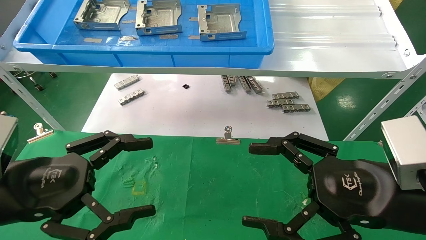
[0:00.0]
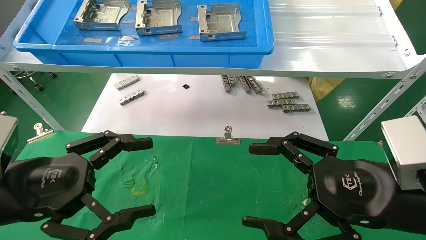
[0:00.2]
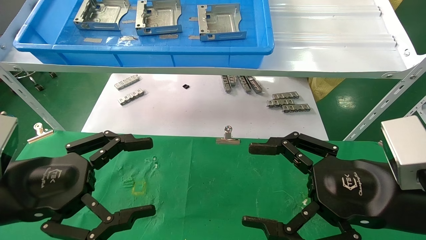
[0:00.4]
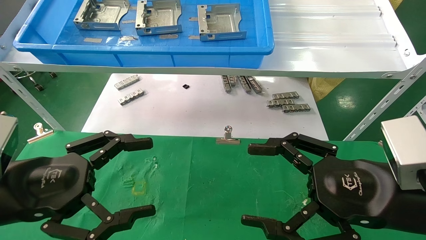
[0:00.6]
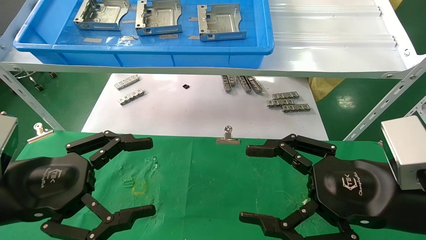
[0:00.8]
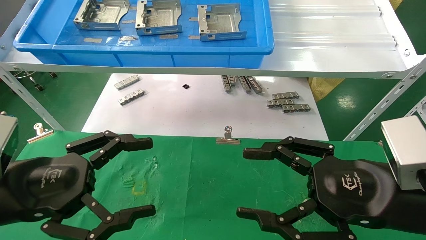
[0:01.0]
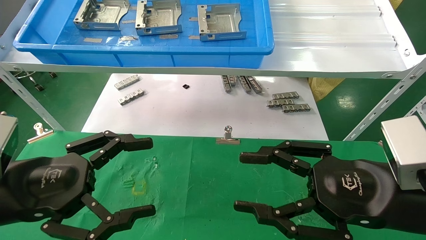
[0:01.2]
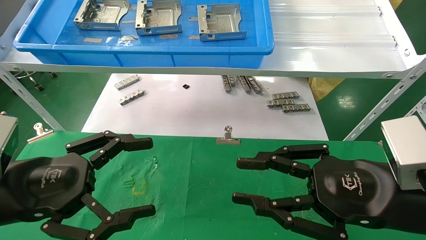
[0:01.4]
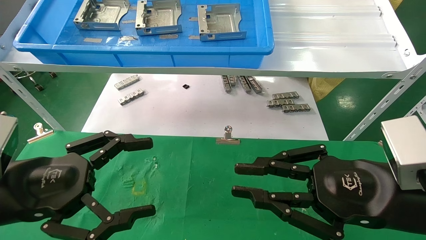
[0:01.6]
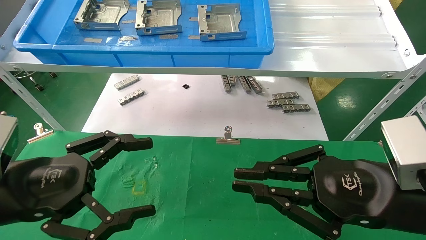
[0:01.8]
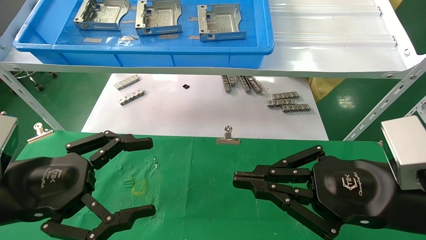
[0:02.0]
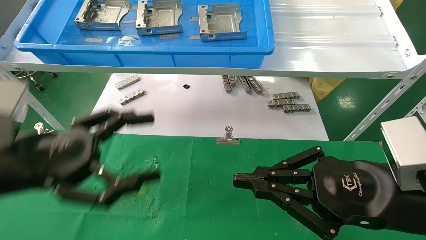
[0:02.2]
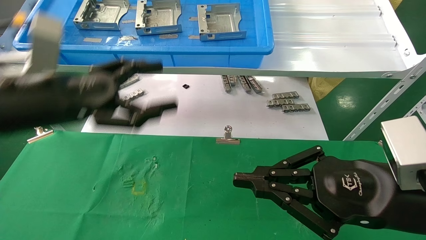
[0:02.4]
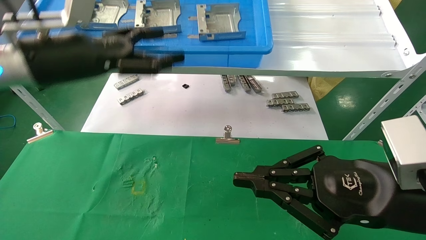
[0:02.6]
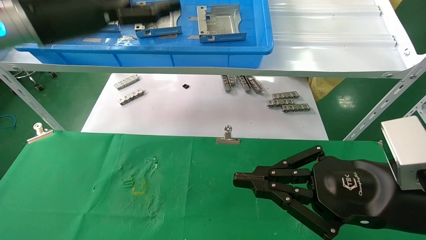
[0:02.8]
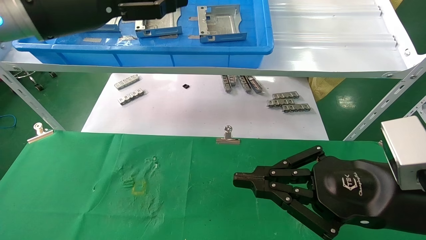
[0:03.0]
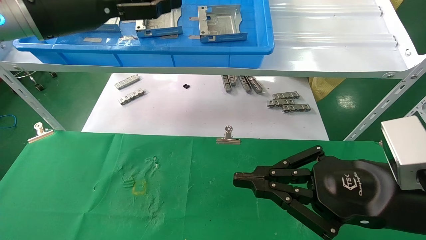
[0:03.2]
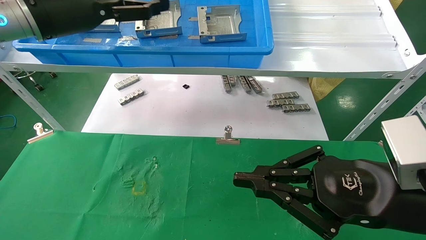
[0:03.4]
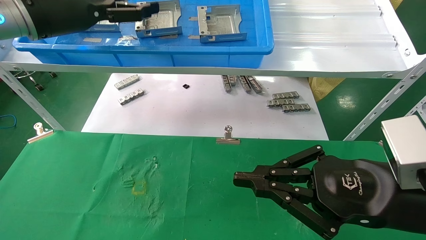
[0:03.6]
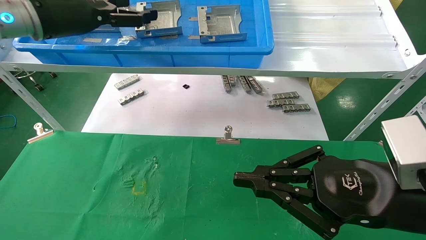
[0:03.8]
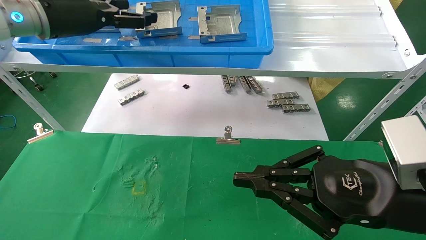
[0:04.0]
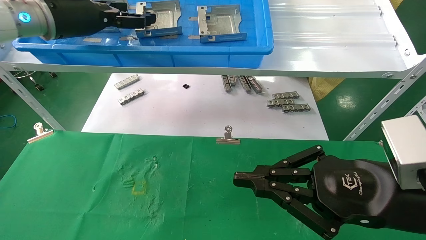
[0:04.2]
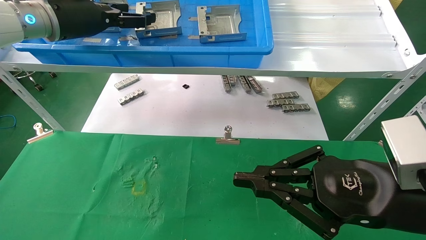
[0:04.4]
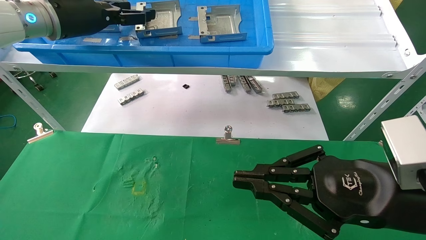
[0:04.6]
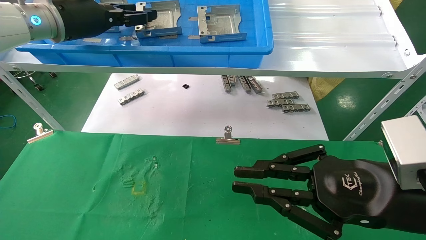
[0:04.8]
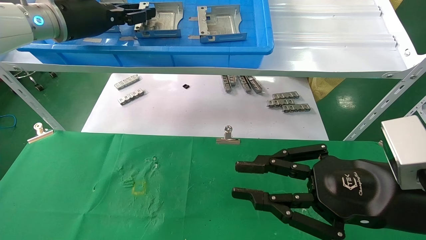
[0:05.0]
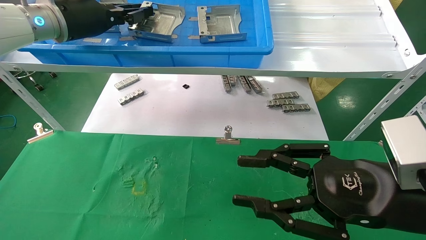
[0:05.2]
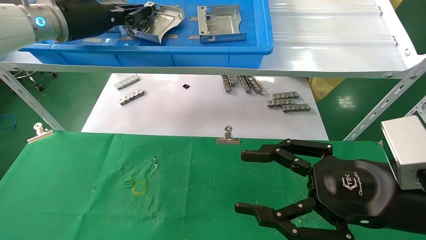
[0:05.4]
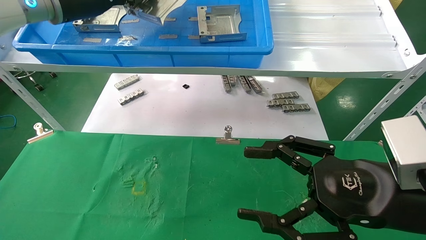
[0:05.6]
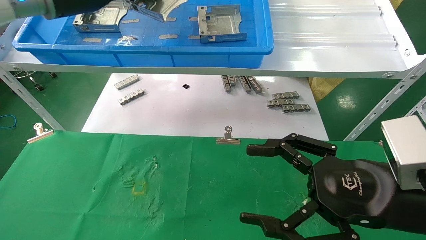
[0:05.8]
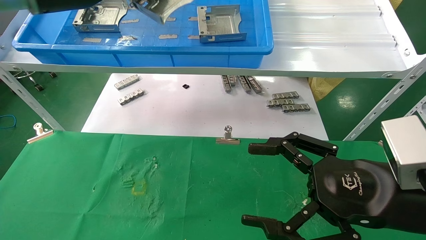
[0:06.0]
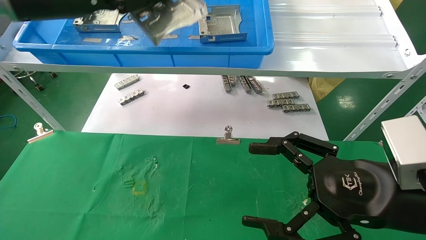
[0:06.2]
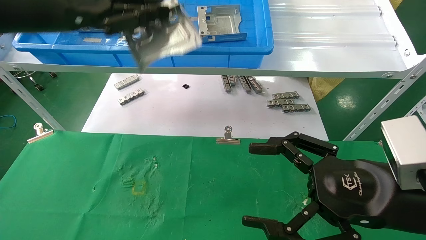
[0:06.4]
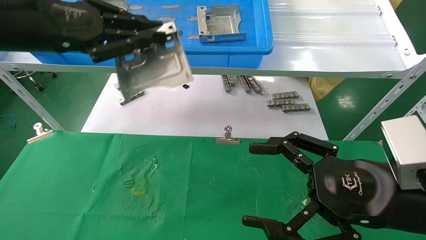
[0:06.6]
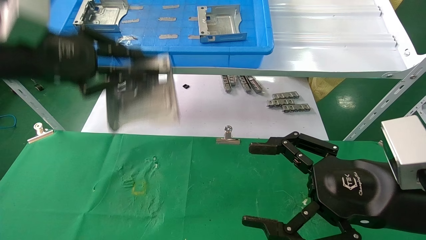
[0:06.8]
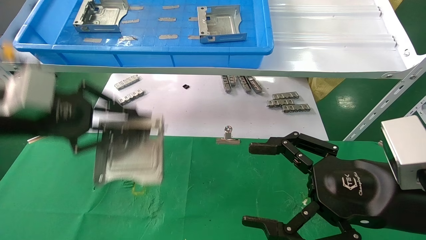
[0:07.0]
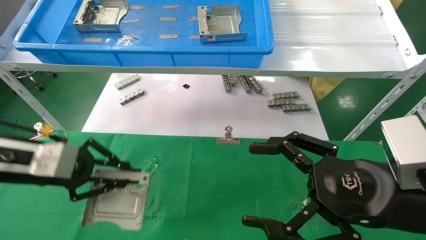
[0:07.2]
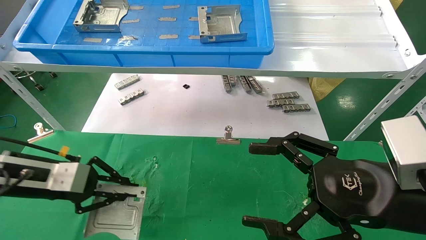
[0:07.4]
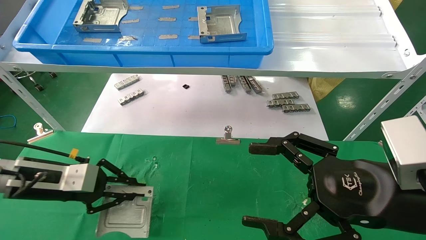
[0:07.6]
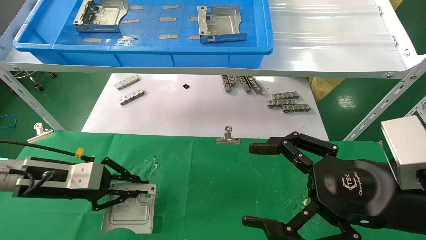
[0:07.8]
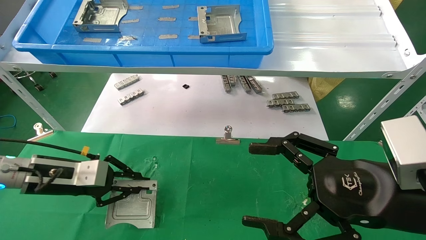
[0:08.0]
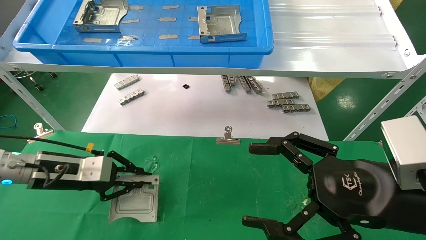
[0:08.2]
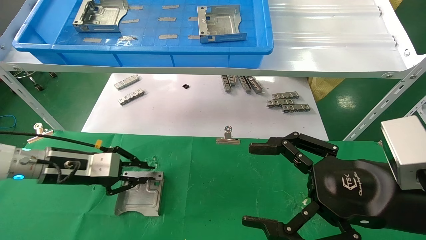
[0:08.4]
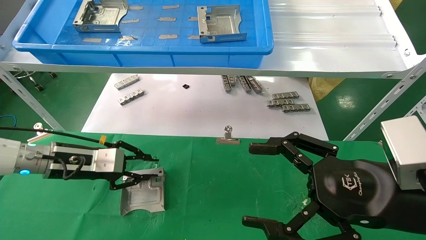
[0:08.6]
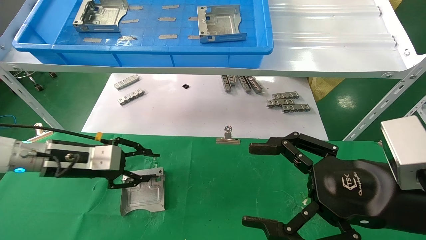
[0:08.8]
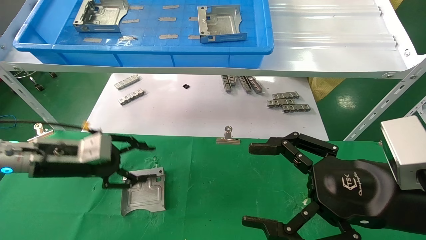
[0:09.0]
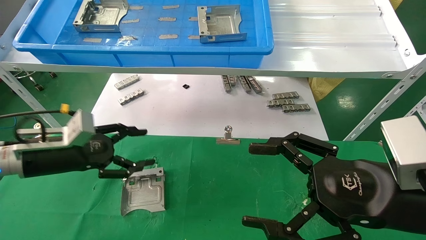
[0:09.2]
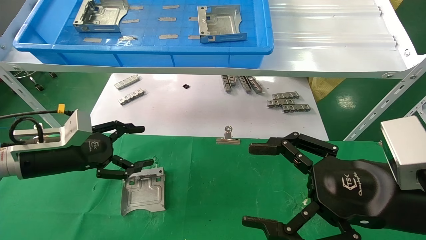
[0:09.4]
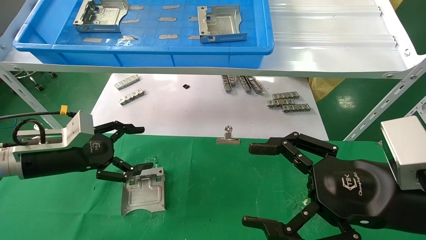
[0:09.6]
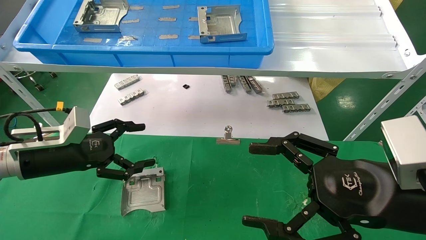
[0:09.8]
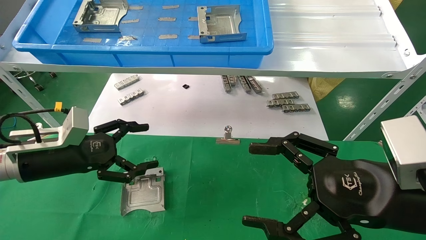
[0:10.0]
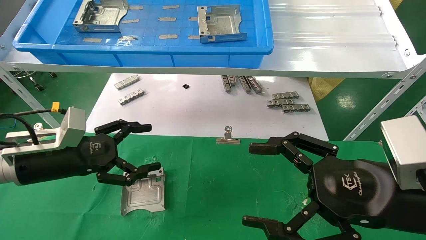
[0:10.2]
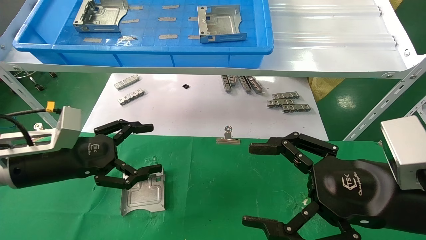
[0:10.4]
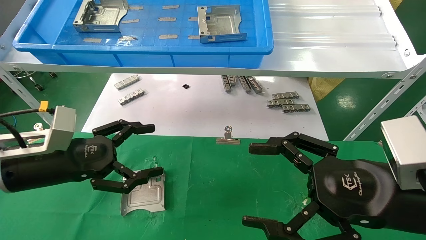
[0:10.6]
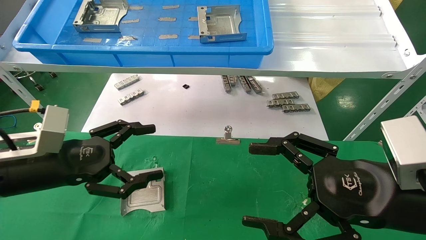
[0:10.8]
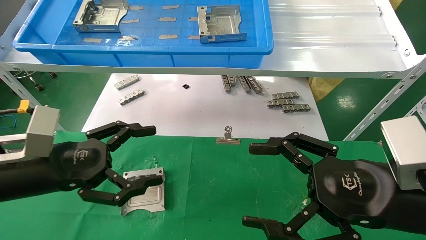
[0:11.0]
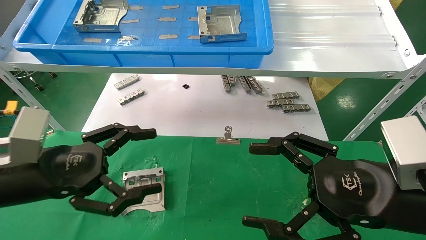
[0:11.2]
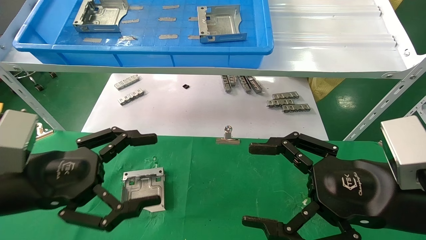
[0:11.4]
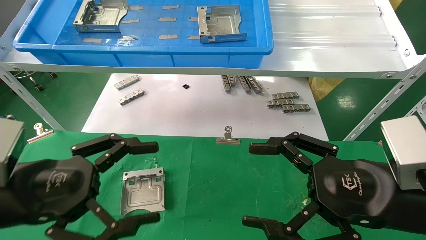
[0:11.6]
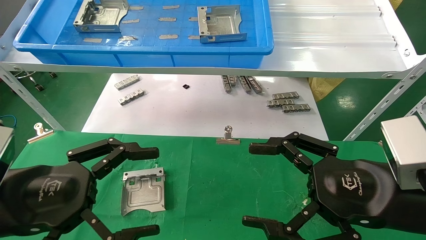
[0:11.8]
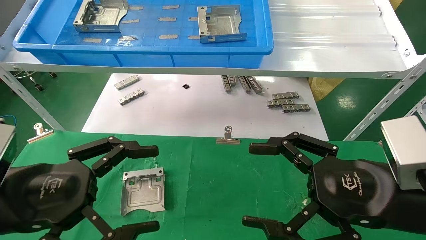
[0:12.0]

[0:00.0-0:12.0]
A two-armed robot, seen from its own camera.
Task of the whole recording: use the mechanical arm to pick up the parts and place them on the table.
Step, 0:01.4 to 0:05.8: Pick up the hard drive bracket from the feeding area.
Step, 0:06.0 to 0:09.2: Place the hard drive bracket into the box.
0:00.0 to 0:01.6: The right gripper closes its fingers.
0:01.6 to 0:03.0: The left gripper is displaced upward and forward by roughly 25 cm.
0:03.0 to 0:04.4: The left gripper shifts some 5 cm forward.
0:04.4 to 0:06.0: The right gripper opens. Meanwhile the left gripper travels backward by roughly 5 cm, and closes.
0:06.0 to 0:07.6: The left gripper travels downward by about 30 cm.
0:07.6 to 0:09.0: The left gripper opens its fingers.
0:09.0 to 0:10.4: The left gripper ends up about 5 cm from where it was, and opens its fingers.
0:10.4 to 0:12.0: The left gripper moves backward, about 15 cm.

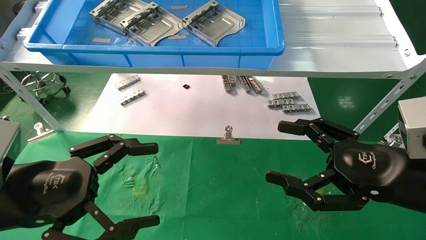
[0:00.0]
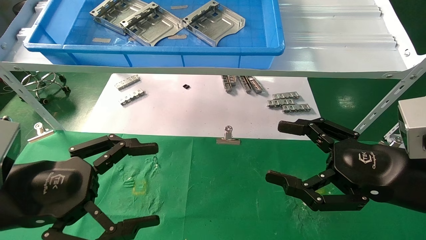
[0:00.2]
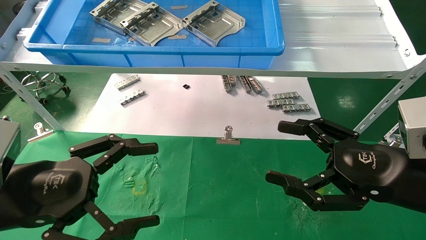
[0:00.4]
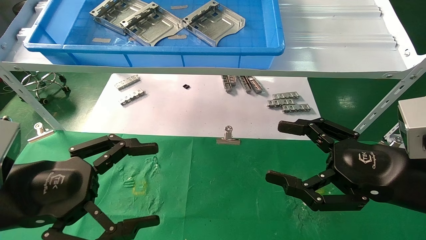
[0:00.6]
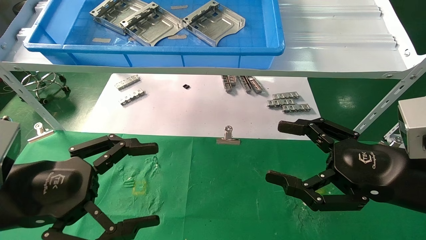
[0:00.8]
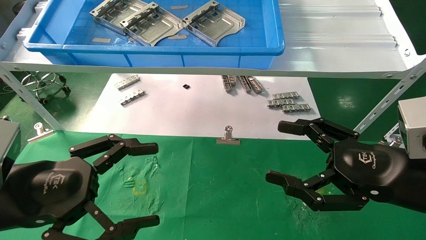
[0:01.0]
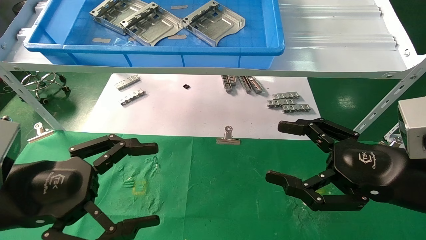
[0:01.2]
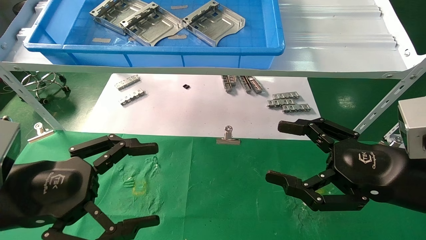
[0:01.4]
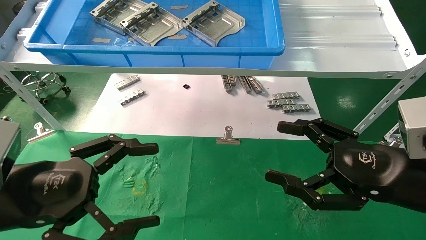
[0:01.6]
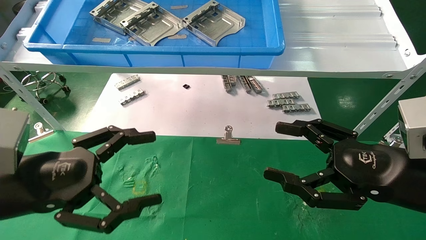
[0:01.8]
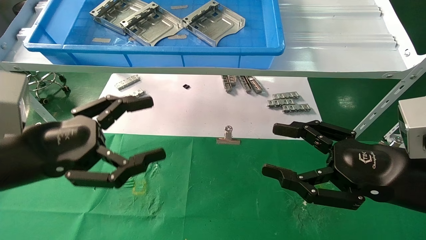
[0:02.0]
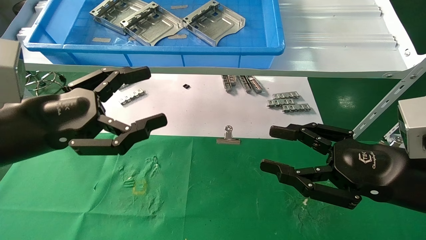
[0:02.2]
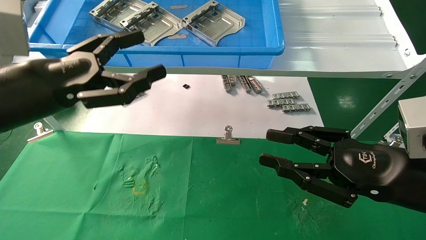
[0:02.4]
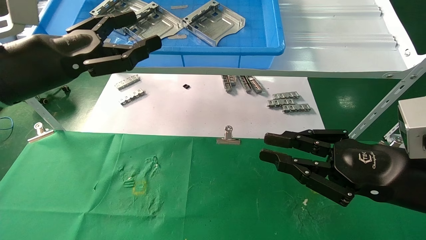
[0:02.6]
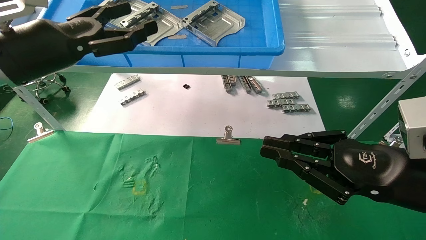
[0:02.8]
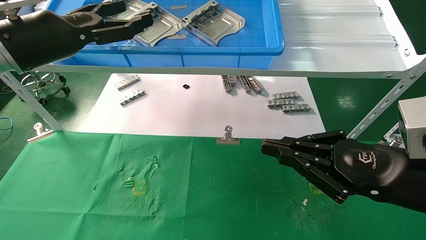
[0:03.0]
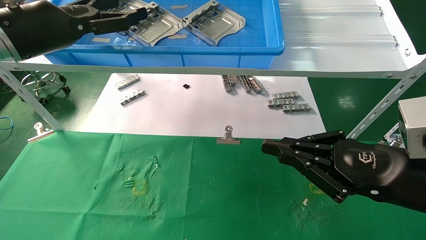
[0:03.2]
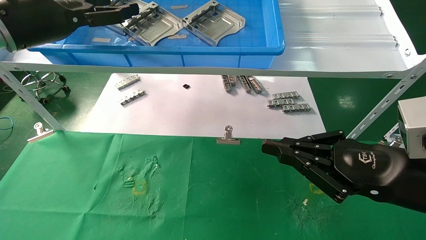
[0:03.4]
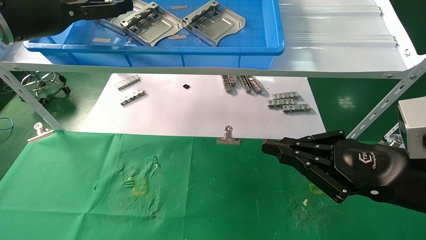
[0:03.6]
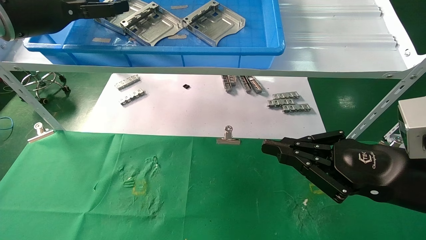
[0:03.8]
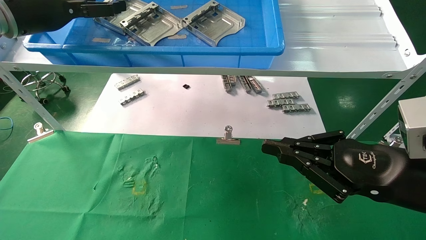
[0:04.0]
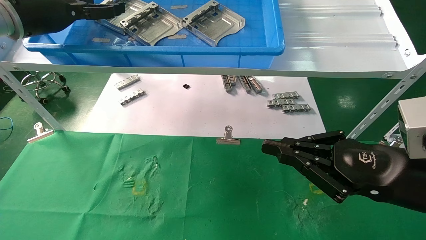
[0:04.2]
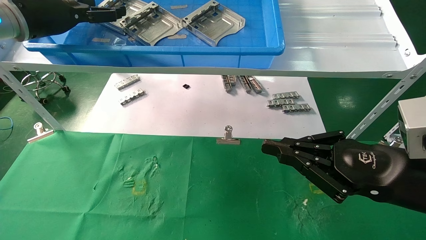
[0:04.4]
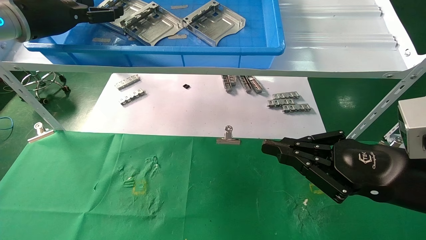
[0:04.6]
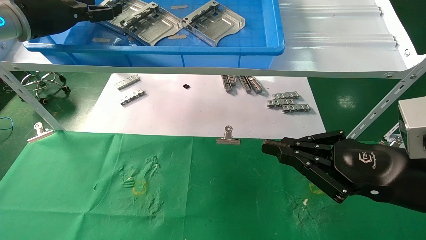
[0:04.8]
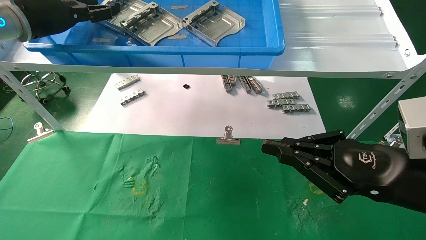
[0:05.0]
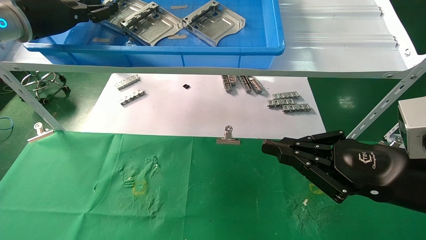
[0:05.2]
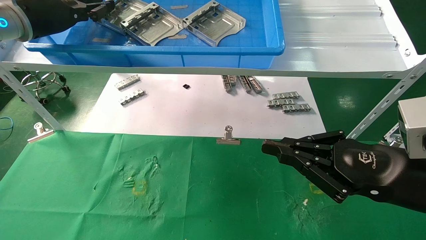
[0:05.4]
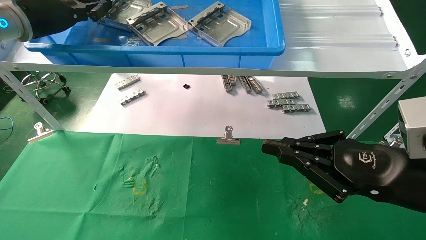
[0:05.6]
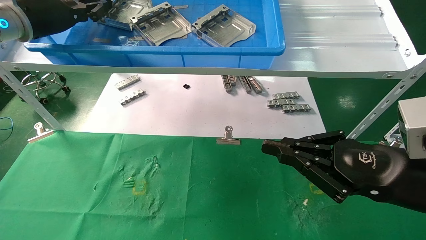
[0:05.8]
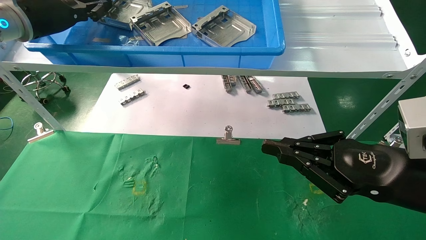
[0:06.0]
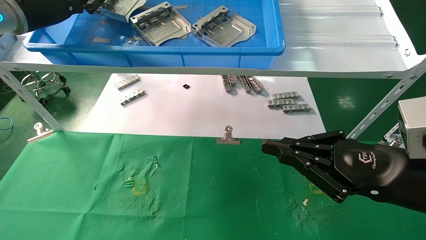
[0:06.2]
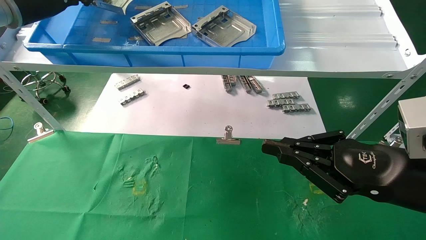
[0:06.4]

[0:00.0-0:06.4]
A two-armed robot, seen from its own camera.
Task of the whole recording: use the mechanical arm to pick up the parts and place them on the table.
Step, 0:02.0 to 0:05.8: Pick up the hard drive bracket from the feeding area.
0:00.0 to 0:01.6: The two grippers keep their place.
0:01.6 to 0:03.2: The right gripper closes up. The left gripper shifts approximately 25 cm upward and forward.
0:03.2 to 0:04.8: The left gripper travels forward by approximately 5 cm.
0:04.8 to 0:06.4: The left gripper closes.
